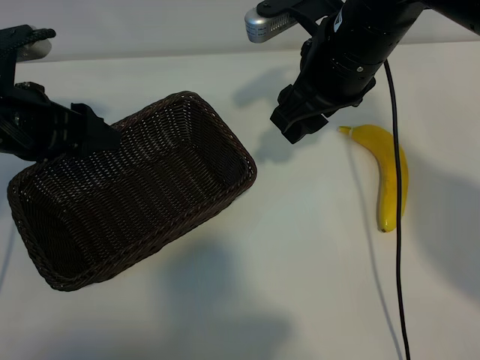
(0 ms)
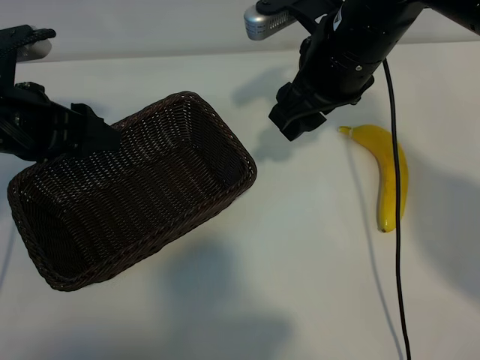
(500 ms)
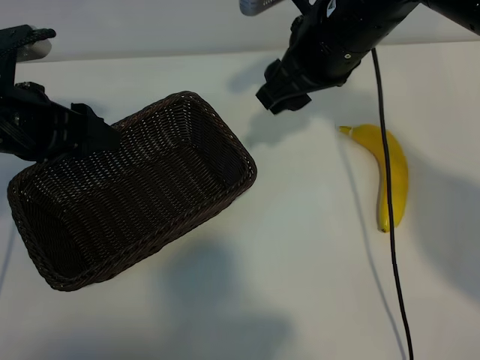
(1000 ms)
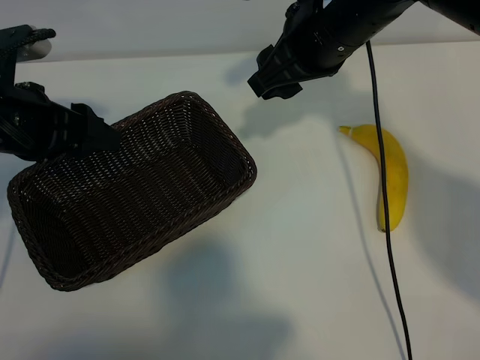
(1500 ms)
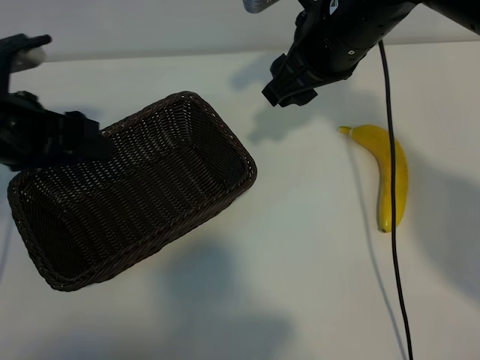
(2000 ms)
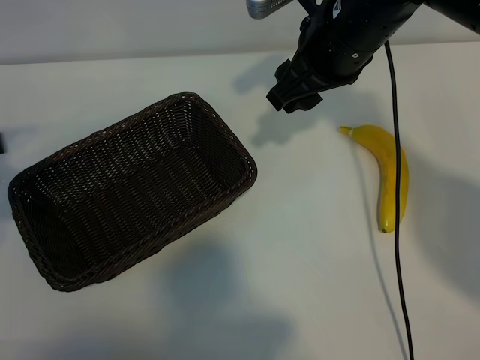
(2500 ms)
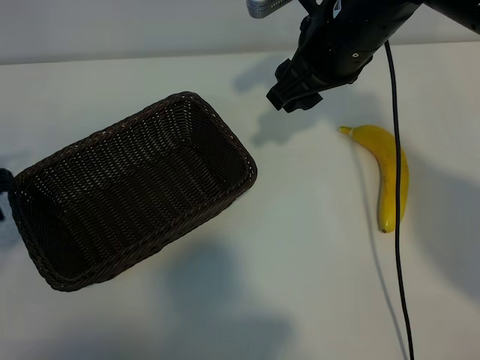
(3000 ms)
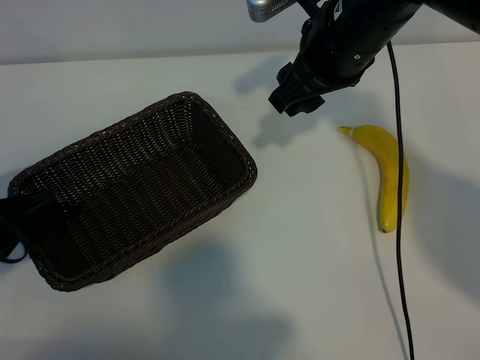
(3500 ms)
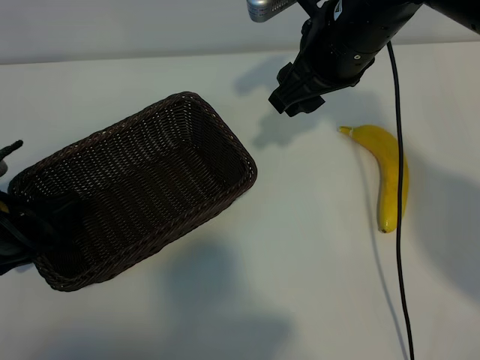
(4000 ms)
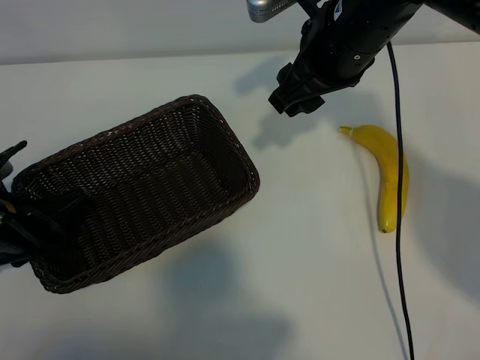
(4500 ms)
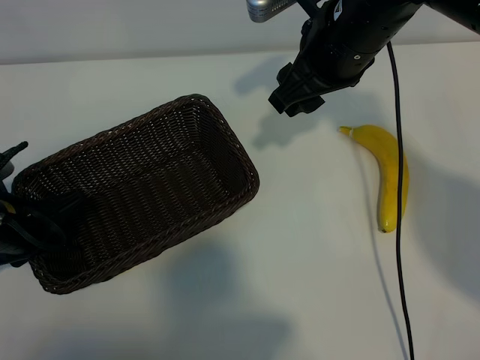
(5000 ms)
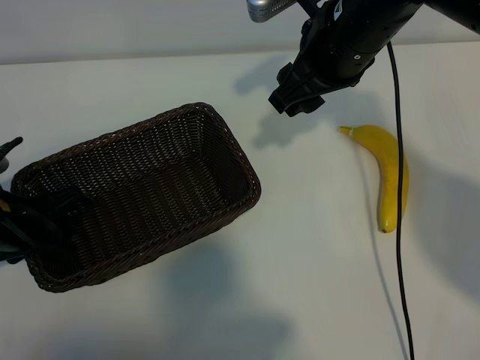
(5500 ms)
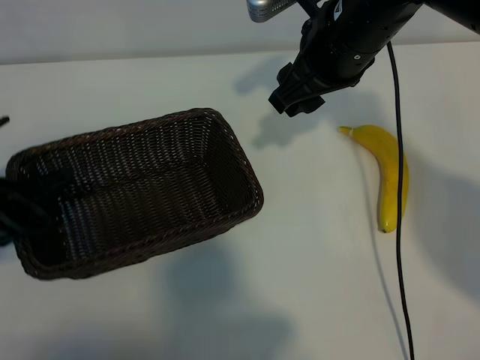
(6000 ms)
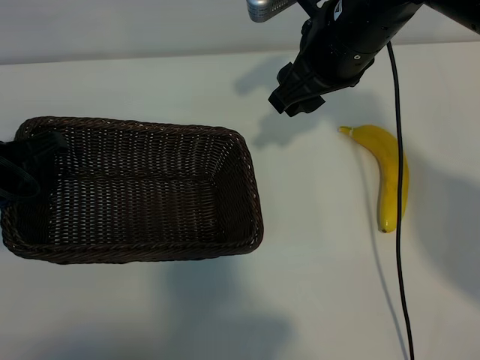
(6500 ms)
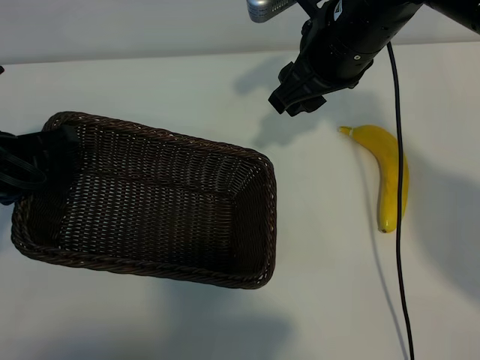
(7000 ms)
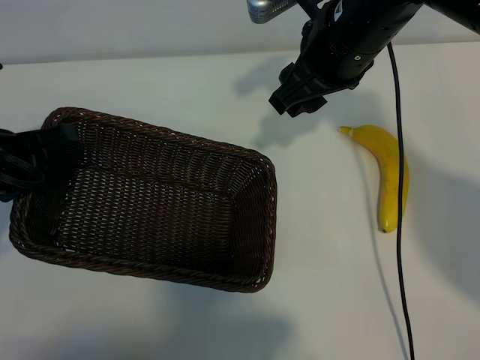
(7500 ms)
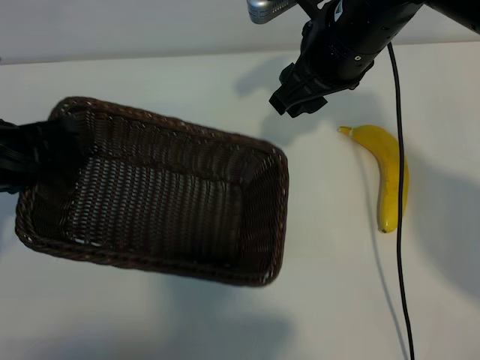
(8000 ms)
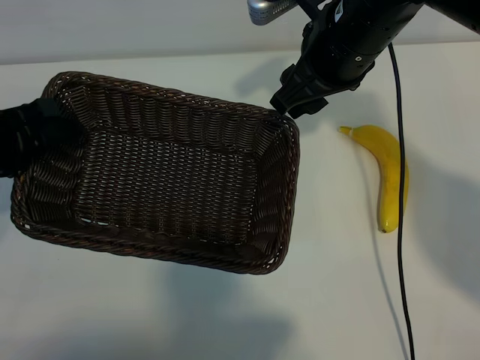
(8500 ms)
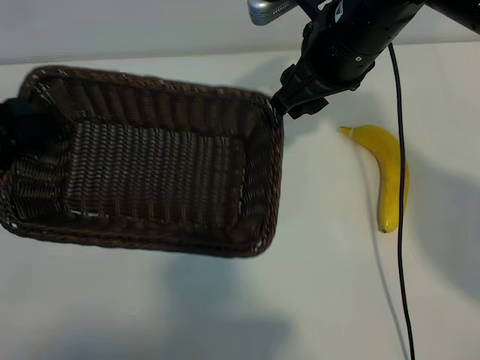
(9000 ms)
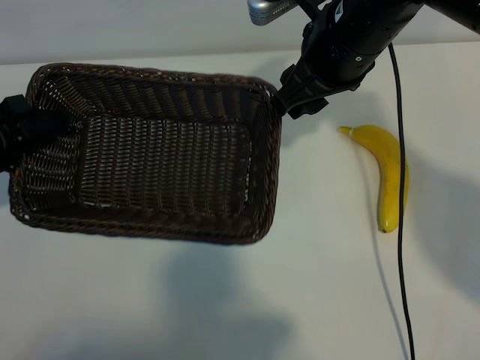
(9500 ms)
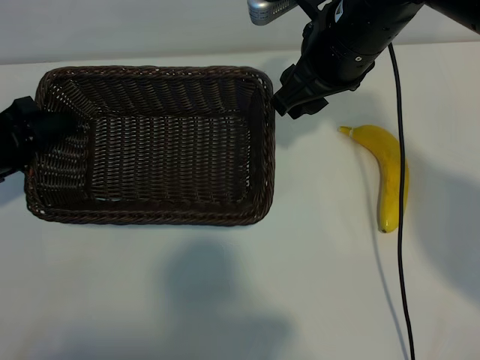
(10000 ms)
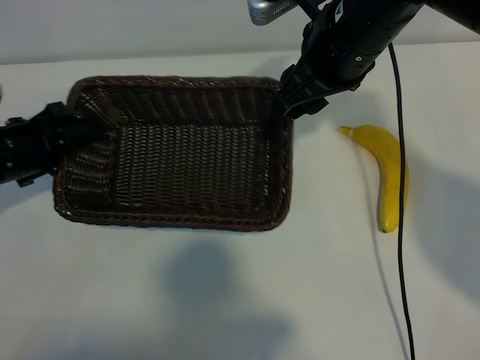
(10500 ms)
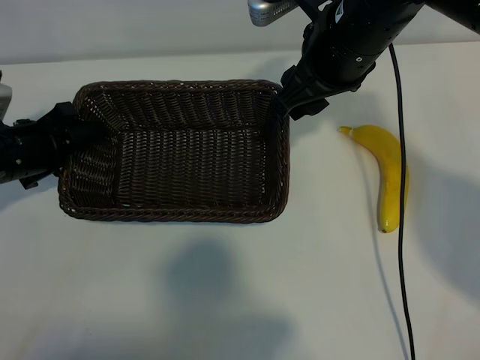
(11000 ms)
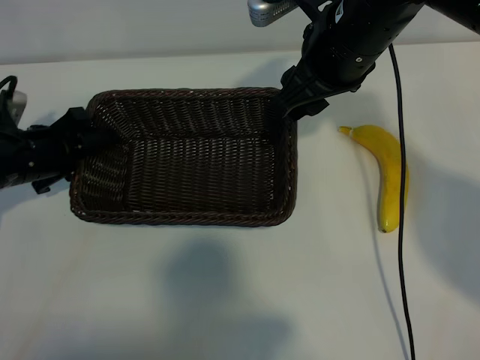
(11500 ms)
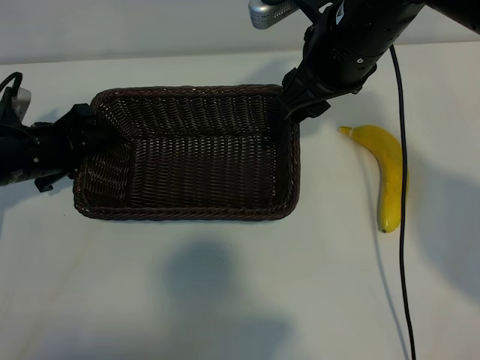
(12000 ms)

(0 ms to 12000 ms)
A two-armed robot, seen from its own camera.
Task of the whole recording: pick up the banana and put it into the basket.
Step, 0 ms - 6000 ms: Grasp the basket with the left gripper.

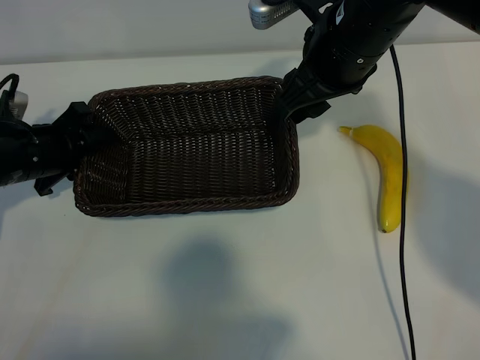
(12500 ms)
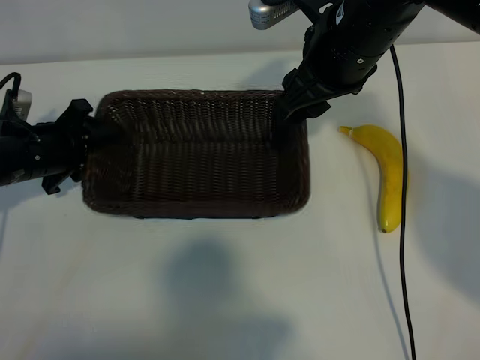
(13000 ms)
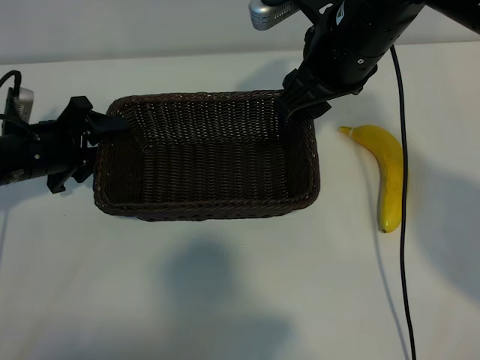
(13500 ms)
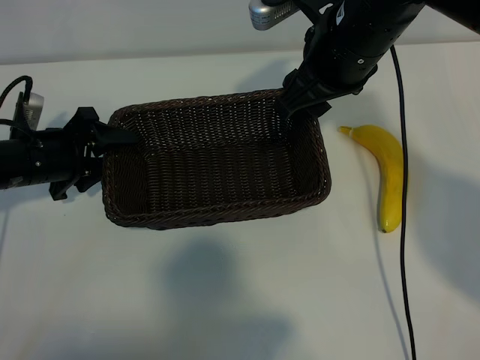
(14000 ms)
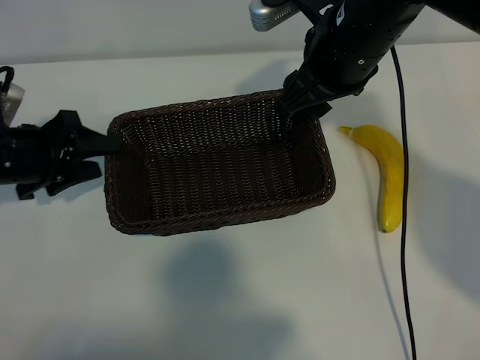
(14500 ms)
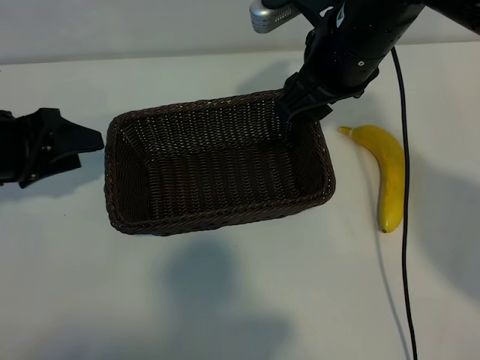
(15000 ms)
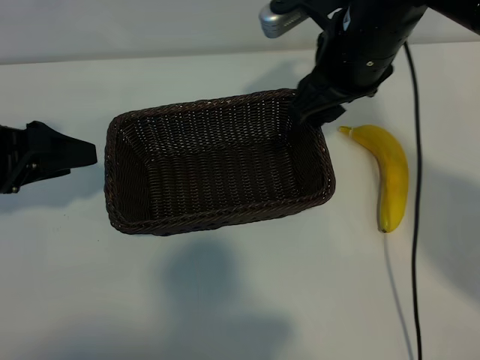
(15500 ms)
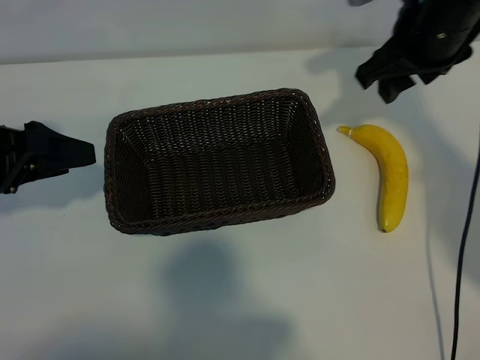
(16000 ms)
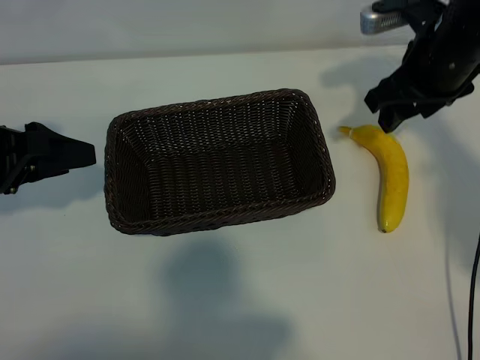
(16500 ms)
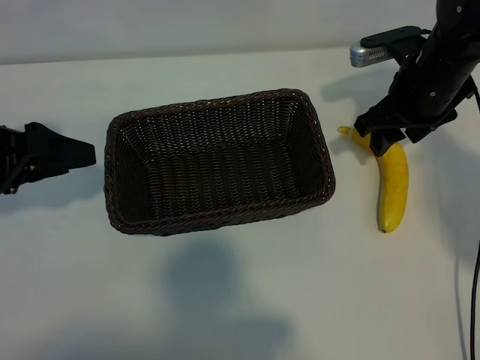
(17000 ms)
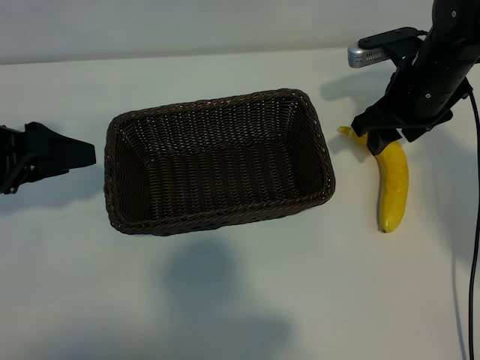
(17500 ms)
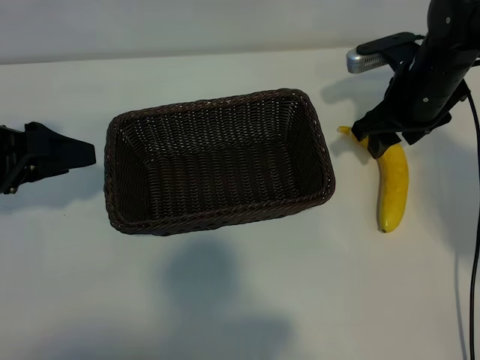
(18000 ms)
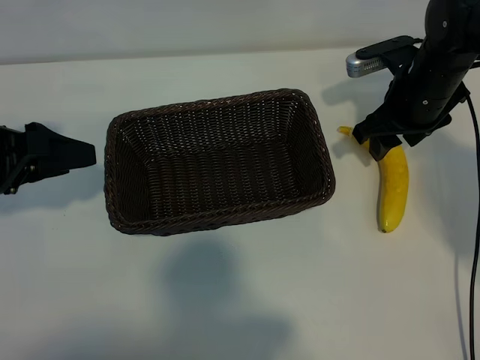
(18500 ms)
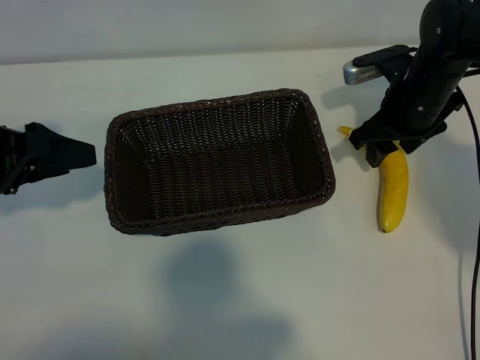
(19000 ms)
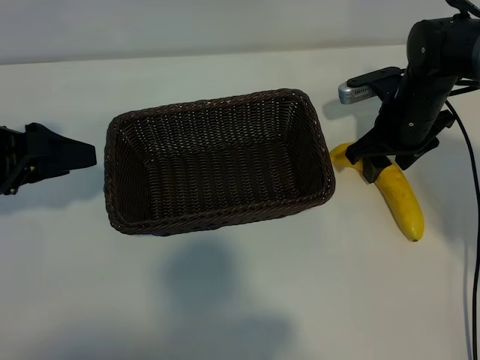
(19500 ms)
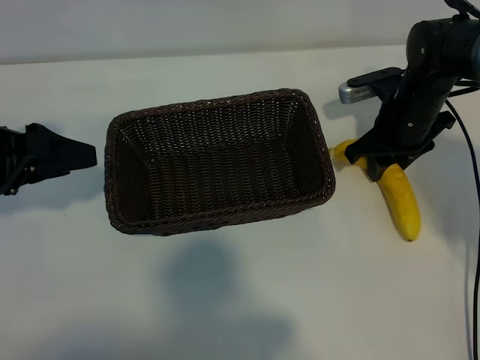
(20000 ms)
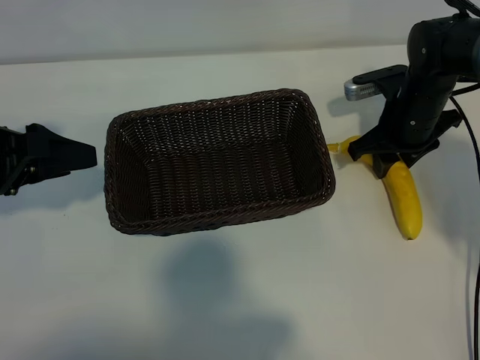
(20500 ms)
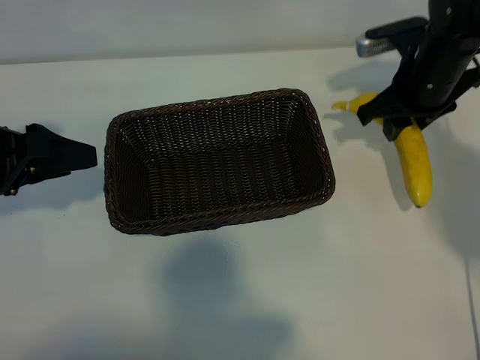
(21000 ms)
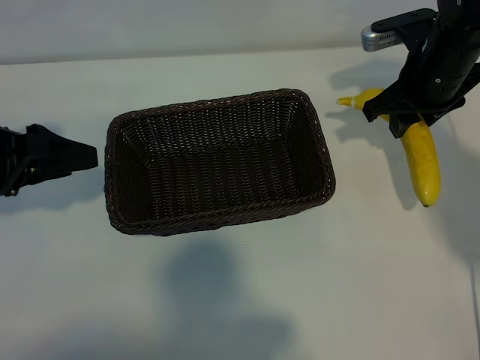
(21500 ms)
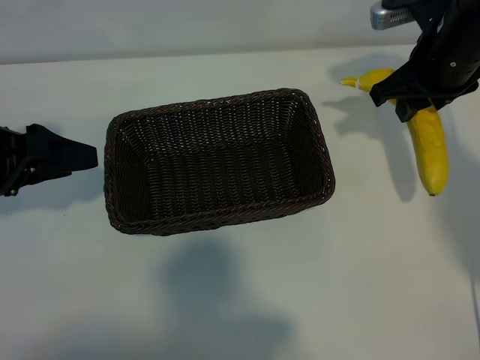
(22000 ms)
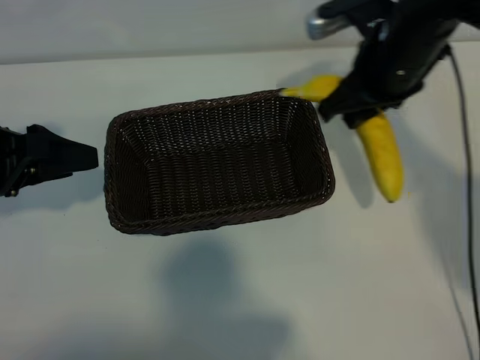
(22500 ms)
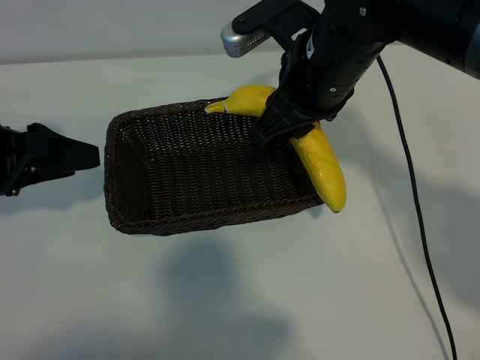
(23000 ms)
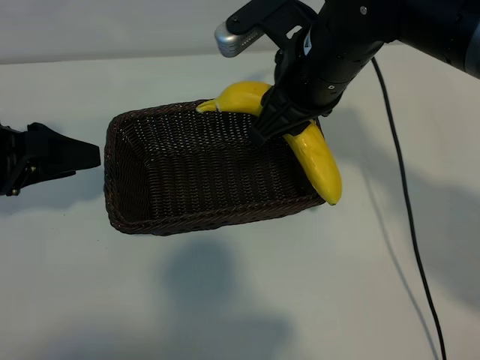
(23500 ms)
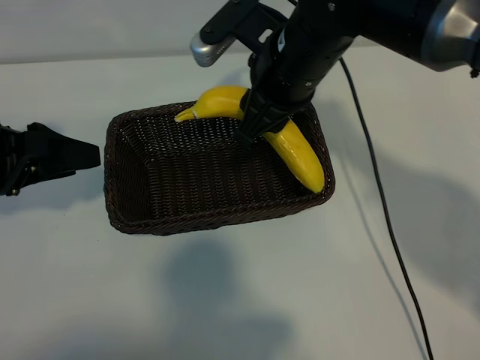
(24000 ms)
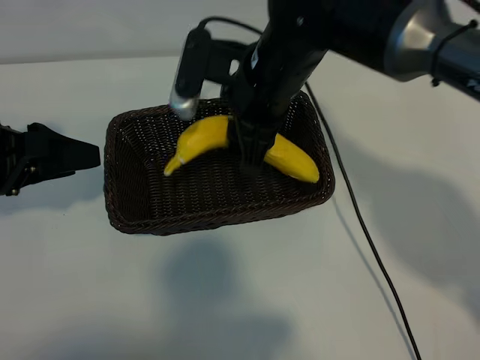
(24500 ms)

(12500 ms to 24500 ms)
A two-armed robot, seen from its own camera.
Task of the whole recording: pick up the banana and put it into the basket.
Step, 12500 ms - 14500 ms: Place the basket in the center of the table with the left gripper.
Step, 15000 ms - 20500 ms: Grasp the banana with right gripper.

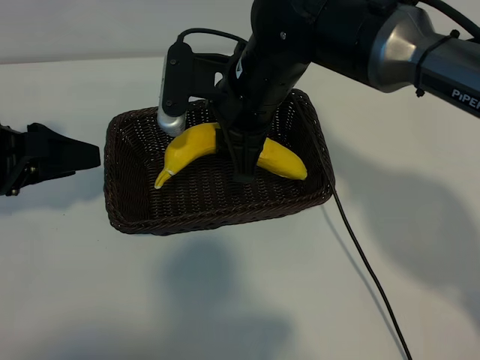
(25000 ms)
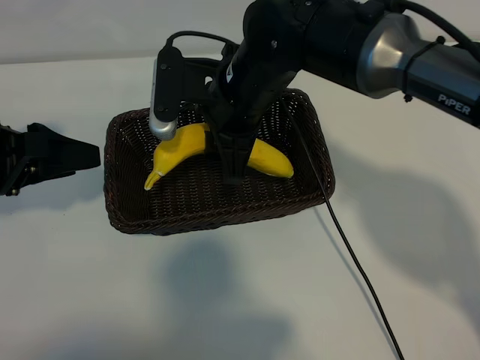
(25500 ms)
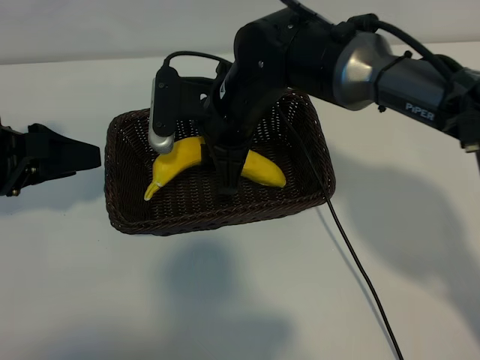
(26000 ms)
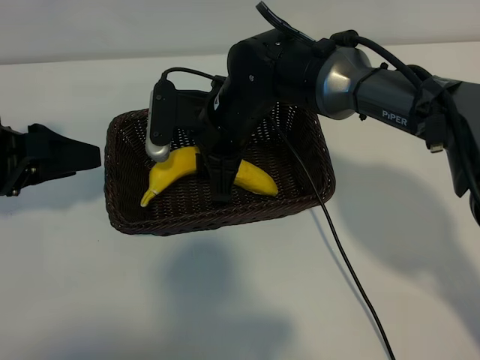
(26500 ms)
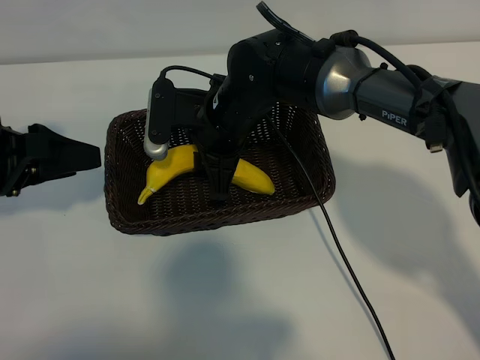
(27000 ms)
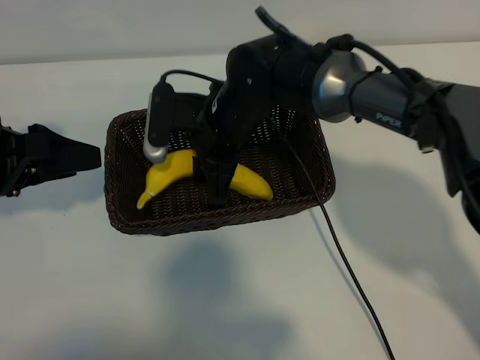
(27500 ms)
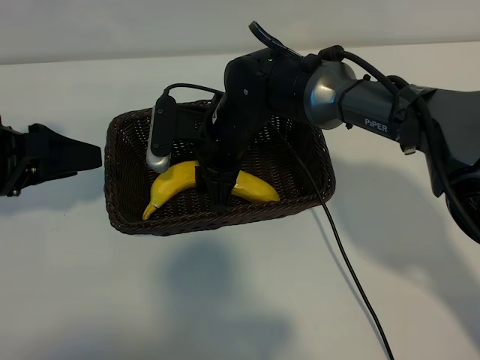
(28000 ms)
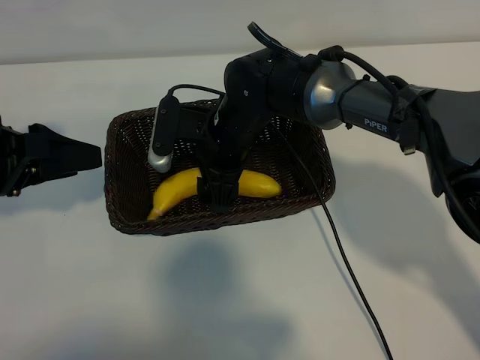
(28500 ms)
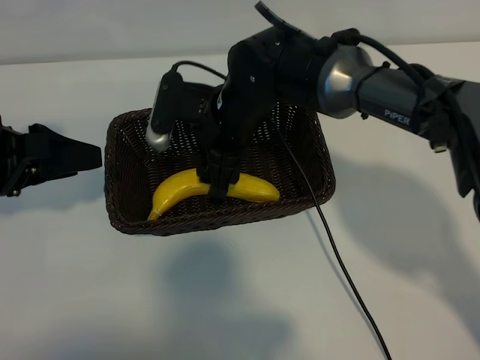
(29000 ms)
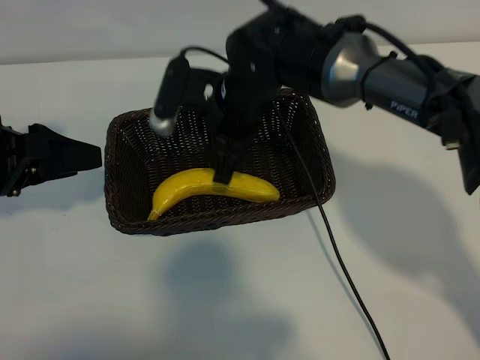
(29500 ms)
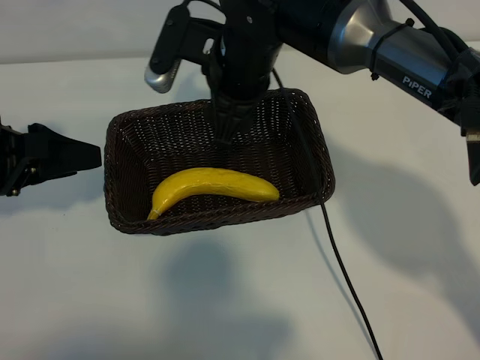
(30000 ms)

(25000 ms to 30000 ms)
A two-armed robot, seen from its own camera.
Task of the whole recording: pick up the banana and put it into the basket.
Step, 25000 ms - 29500 ms: Place the banana in the basket with right gripper.
